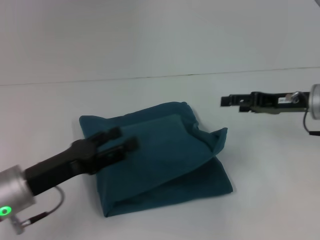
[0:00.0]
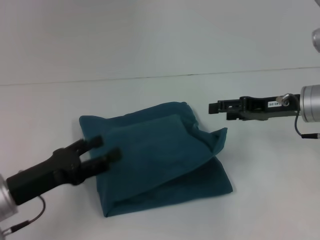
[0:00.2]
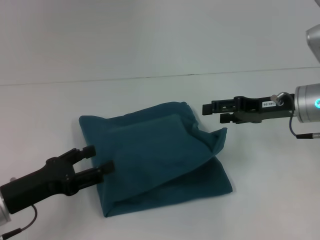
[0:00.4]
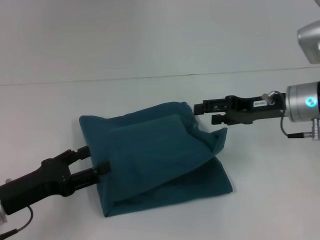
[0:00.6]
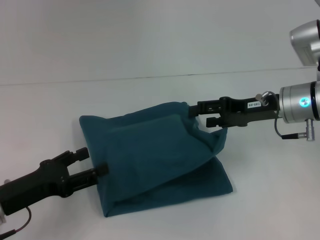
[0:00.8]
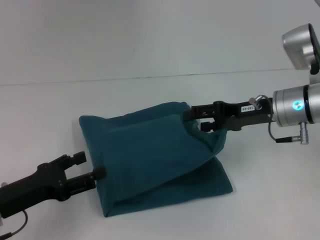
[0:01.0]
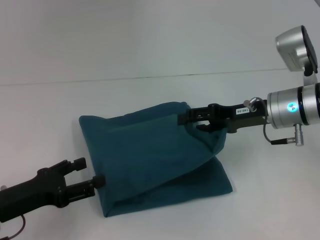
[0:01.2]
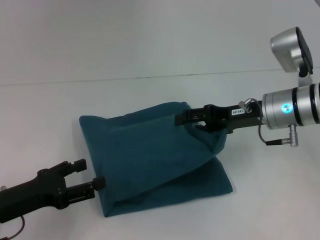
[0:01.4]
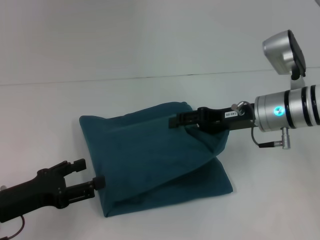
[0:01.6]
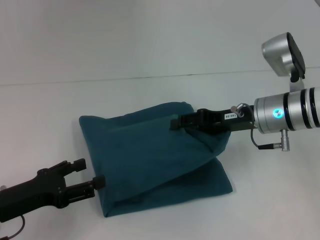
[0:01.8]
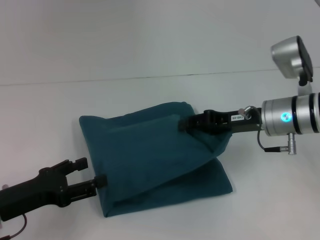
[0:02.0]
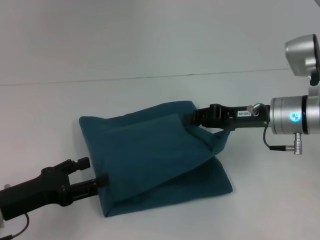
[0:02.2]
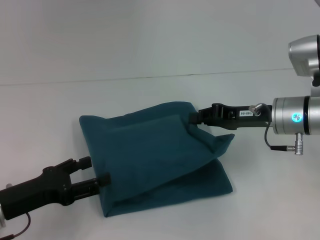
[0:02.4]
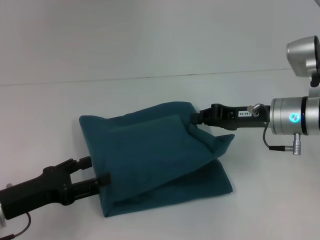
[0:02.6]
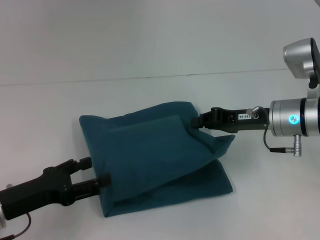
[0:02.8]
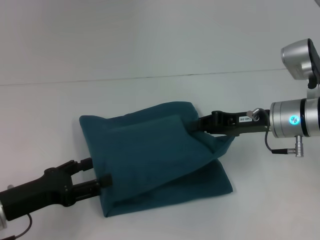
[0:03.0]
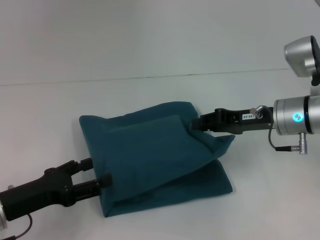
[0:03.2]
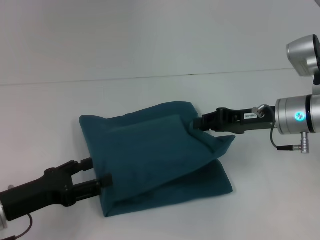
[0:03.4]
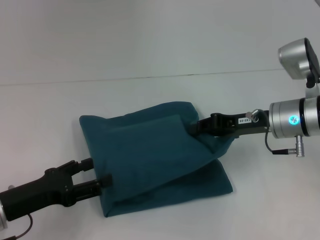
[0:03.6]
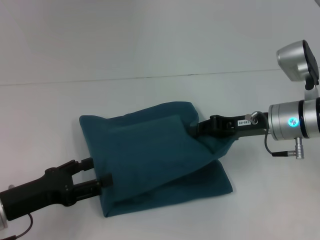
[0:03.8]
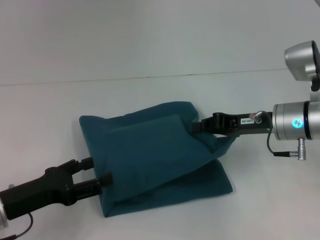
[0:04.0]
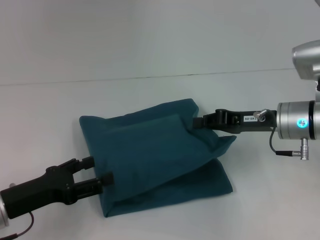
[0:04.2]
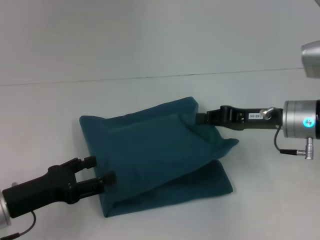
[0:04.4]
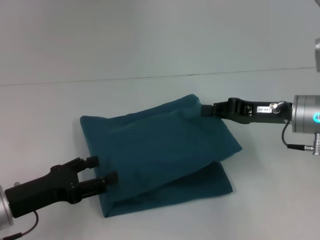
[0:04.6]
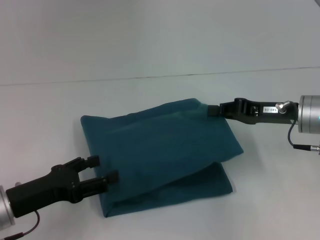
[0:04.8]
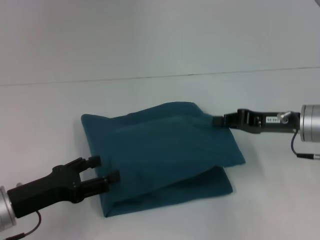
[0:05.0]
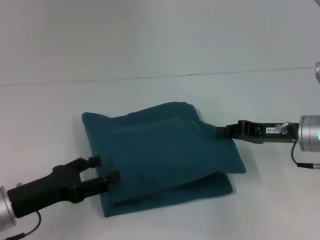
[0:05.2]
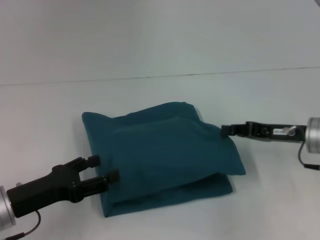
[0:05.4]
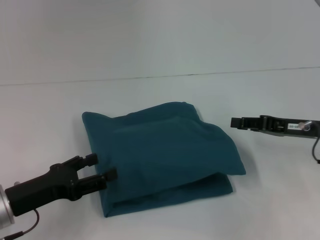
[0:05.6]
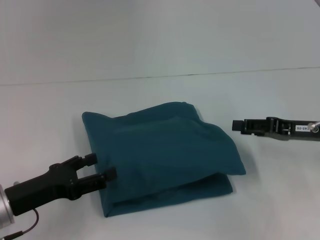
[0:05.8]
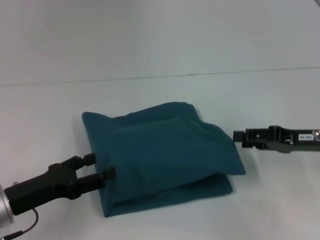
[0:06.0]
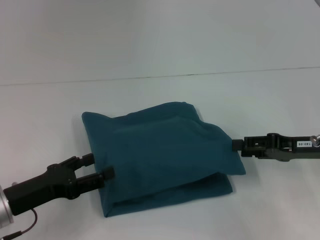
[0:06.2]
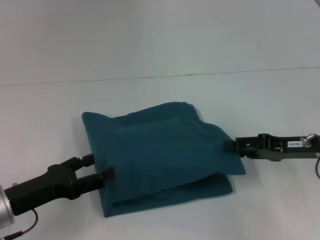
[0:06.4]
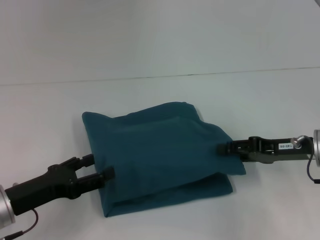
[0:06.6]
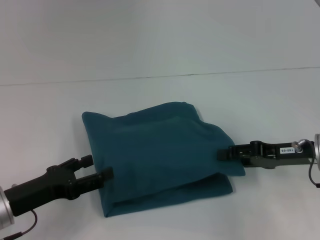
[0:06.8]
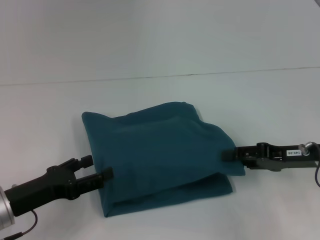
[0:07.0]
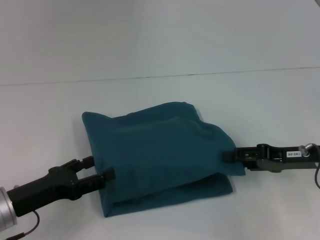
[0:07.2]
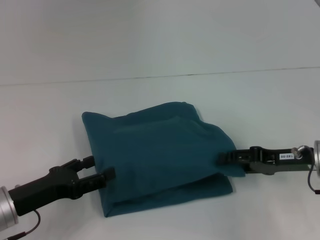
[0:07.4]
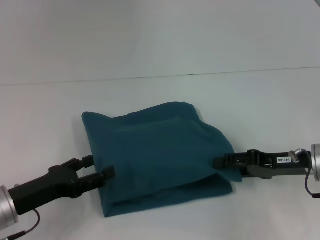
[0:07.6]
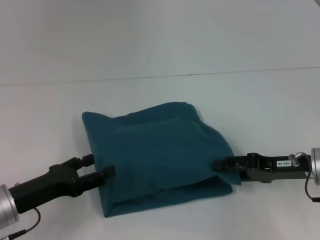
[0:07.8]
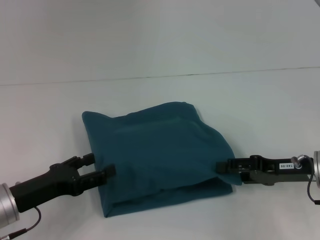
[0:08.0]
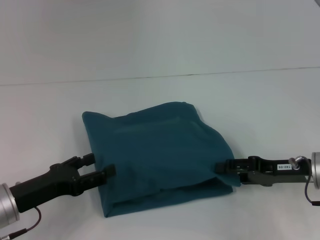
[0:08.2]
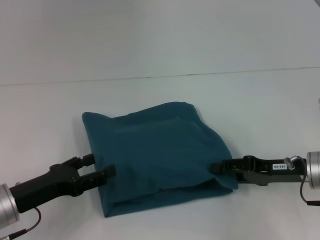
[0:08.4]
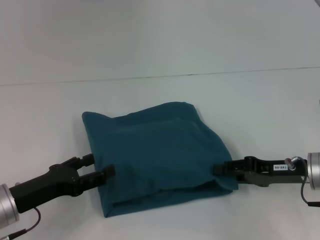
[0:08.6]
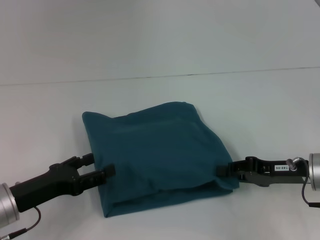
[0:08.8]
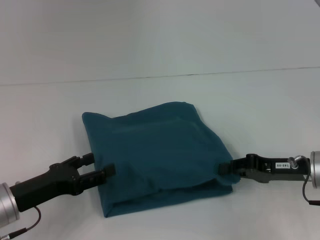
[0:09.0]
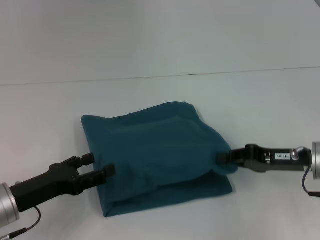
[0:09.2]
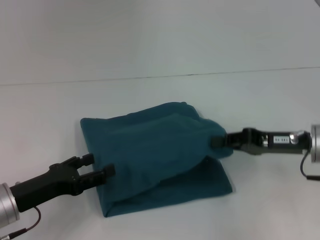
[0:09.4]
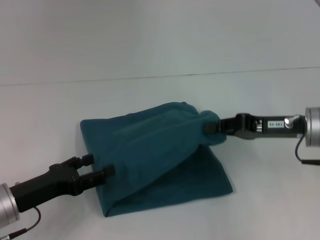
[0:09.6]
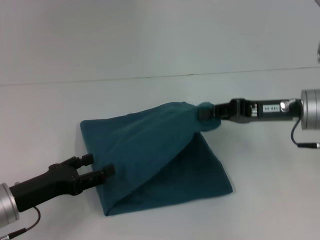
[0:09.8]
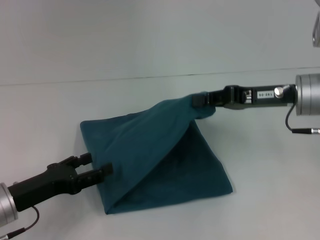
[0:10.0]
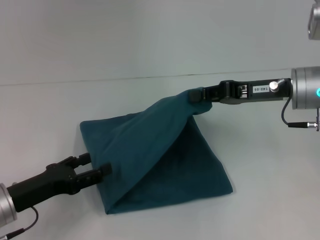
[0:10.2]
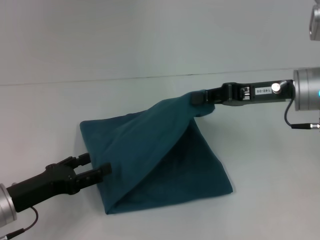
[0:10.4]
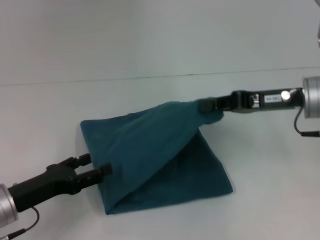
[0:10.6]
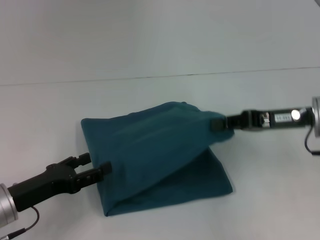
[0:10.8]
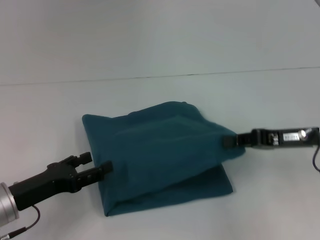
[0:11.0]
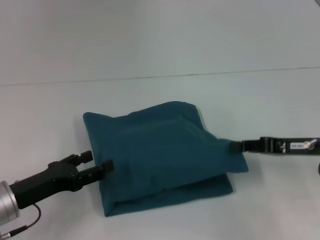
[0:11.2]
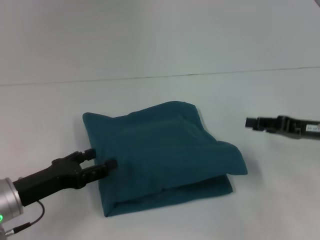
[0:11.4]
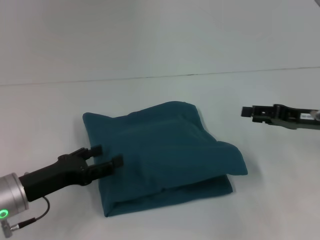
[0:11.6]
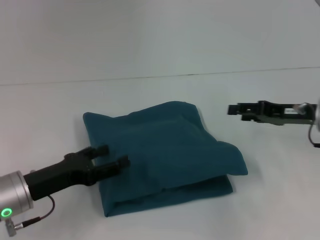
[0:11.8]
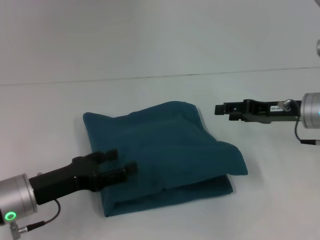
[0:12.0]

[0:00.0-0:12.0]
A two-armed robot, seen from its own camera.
0:00.0 to 0:01.6: The left gripper goes approximately 5 cm to the left, while the right gripper travels to the left by some 10 cm.
0:01.6 to 0:03.0: The right gripper closes its fingers.
0:03.0 to 0:04.4: The grippers make only small movements.
0:04.4 to 0:06.0: The right gripper is displaced to the right by about 5 cm, and opens up.
0:06.0 to 0:07.6: The grippers stay close to where they were, moving slightly.
0:07.6 to 0:09.0: The right gripper closes its fingers.
0:09.0 to 0:10.4: The right gripper heads upward and forward, covering roughly 10 cm.
0:10.4 to 0:12.0: The right gripper shifts some 5 cm downward, and opens its fingers.

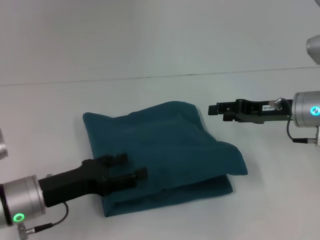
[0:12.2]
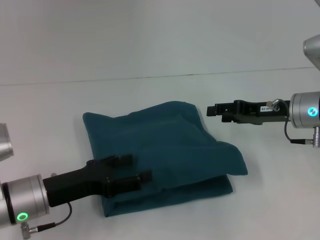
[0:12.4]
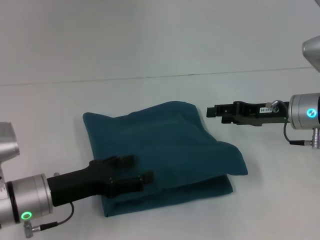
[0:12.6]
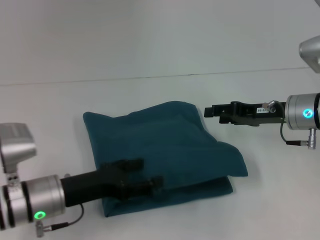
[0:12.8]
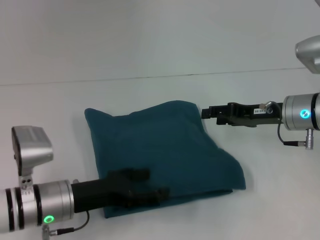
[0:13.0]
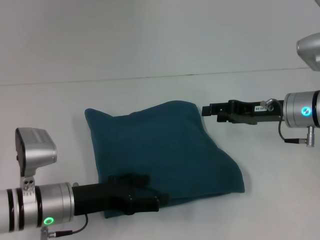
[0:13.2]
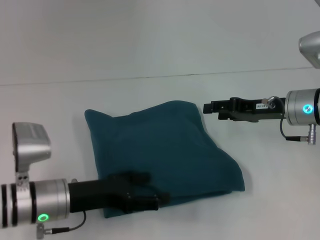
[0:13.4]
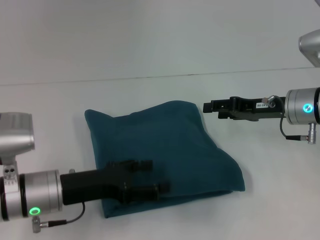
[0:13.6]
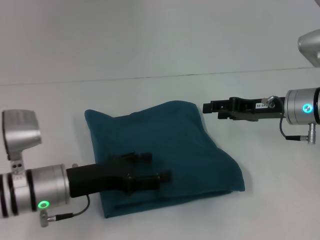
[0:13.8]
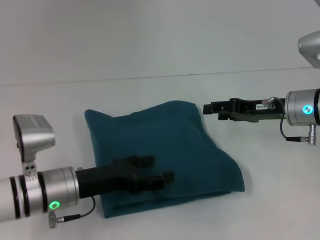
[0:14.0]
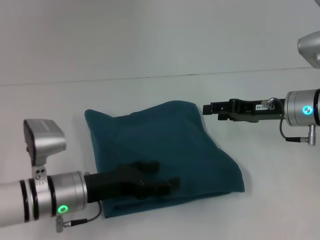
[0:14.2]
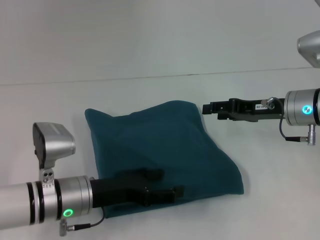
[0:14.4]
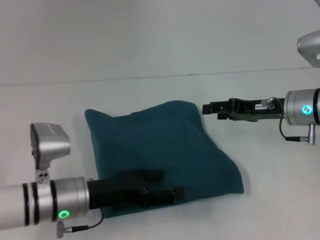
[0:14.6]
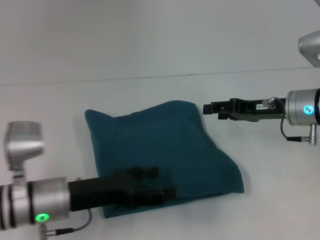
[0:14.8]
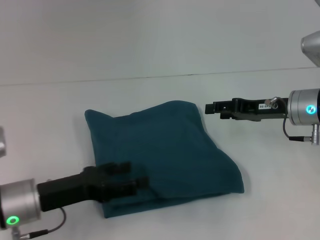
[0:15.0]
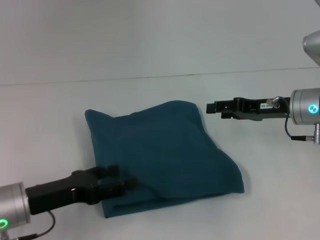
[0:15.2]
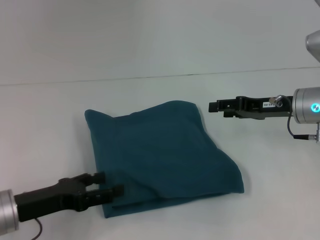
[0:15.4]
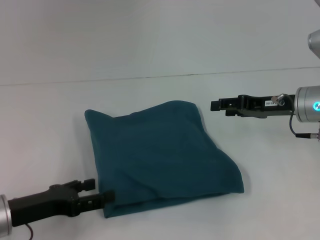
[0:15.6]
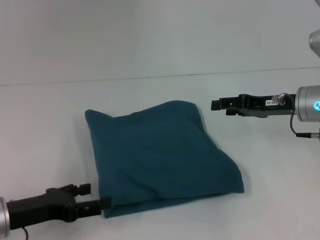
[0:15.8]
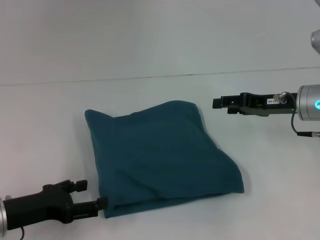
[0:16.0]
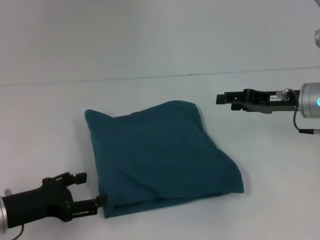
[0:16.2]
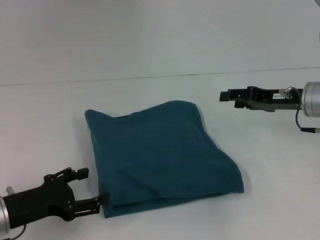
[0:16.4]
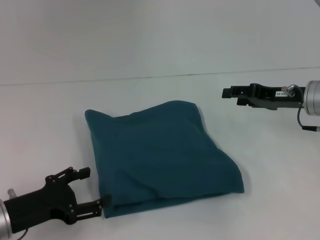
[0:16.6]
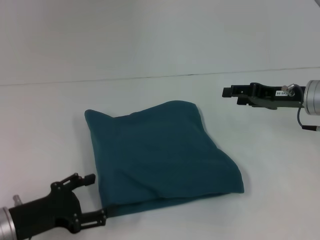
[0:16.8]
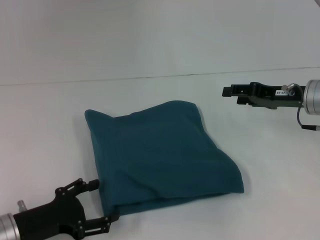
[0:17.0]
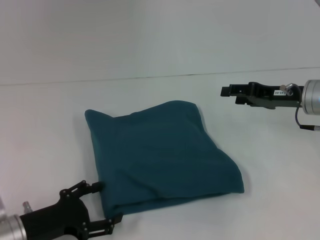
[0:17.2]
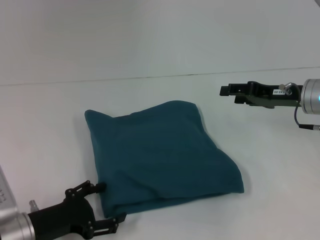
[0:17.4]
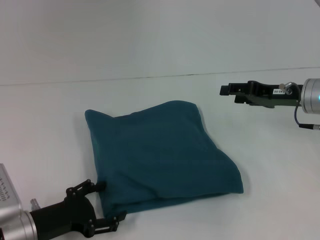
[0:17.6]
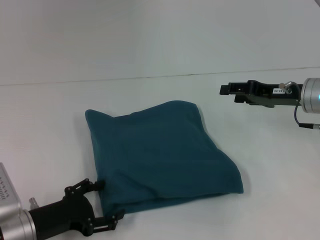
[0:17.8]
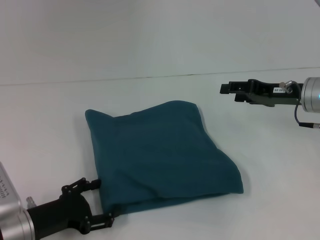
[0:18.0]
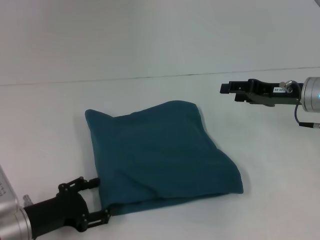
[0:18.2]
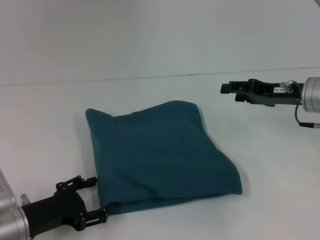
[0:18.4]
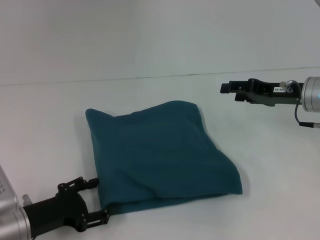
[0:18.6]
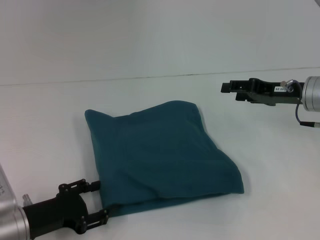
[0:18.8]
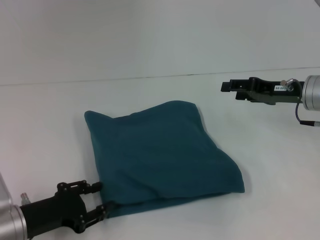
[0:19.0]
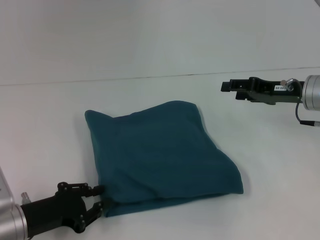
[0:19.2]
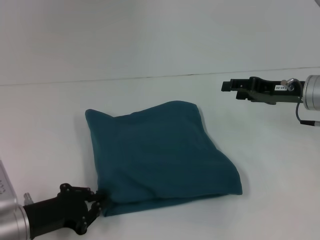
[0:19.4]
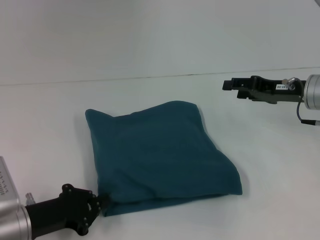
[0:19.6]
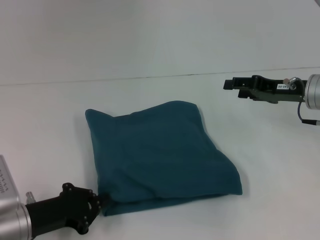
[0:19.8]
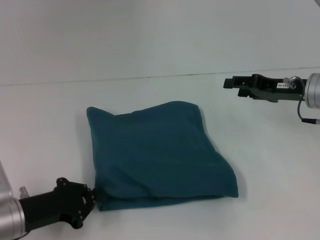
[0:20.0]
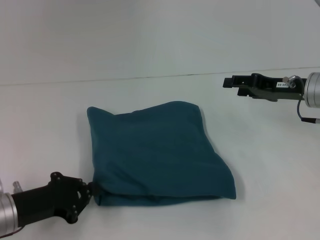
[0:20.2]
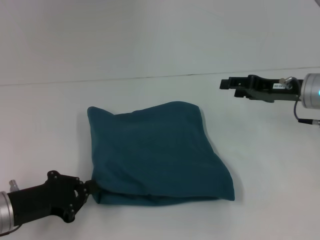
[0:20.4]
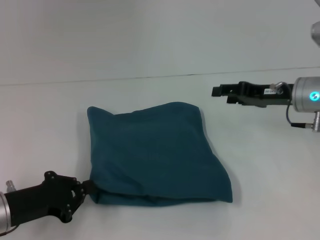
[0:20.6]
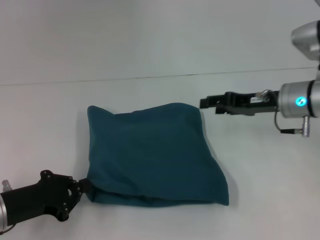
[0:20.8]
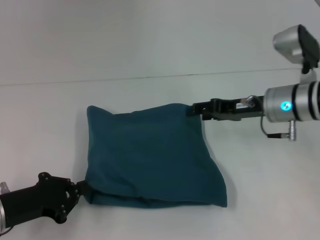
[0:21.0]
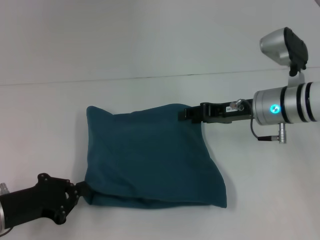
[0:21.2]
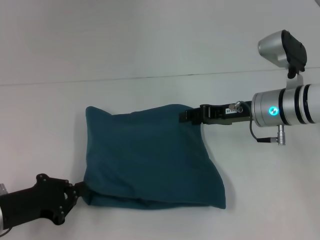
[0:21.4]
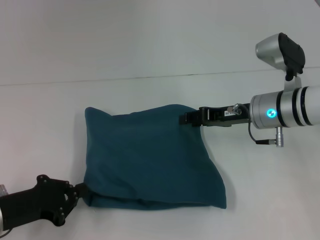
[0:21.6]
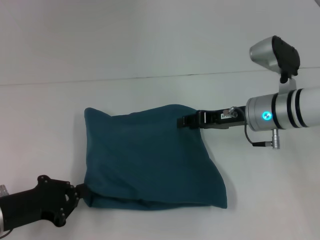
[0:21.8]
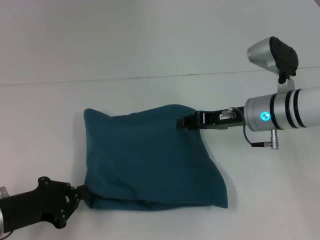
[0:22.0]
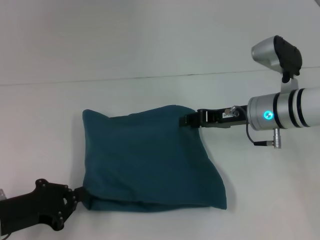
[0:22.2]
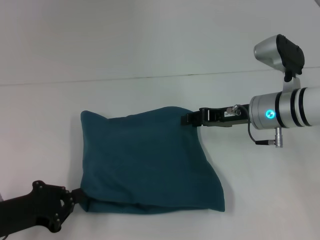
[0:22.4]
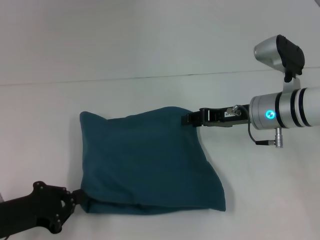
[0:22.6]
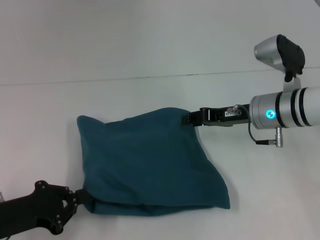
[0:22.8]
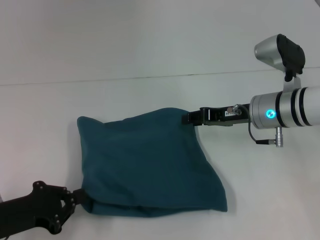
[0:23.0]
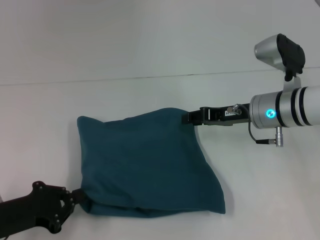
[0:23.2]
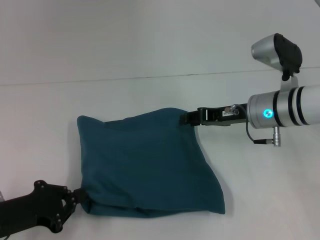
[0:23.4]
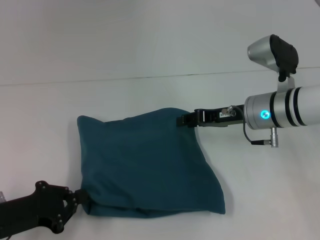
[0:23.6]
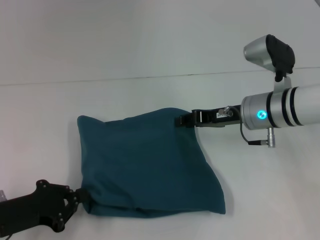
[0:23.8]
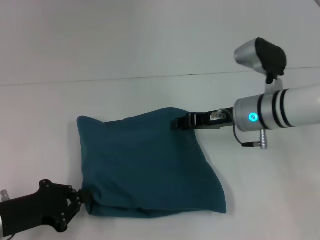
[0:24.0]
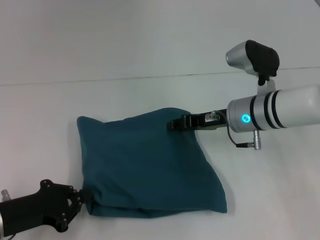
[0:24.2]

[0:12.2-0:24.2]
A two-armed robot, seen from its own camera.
0:12.2 to 0:13.8: The grippers stay close to where they were, moving slightly.
0:13.8 to 0:15.2: The left gripper ends up about 5 cm from where it was.
0:16.6 to 0:18.2: The grippers stay close to where they were, moving slightly.
0:18.2 to 0:19.8: The left gripper closes.
0:19.8 to 0:21.2: The right gripper moves to the left, approximately 10 cm.
0:21.2 to 0:24.2: The grippers stay close to where they were, moving slightly.
